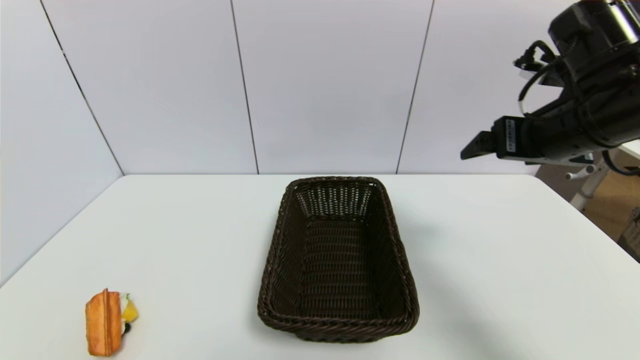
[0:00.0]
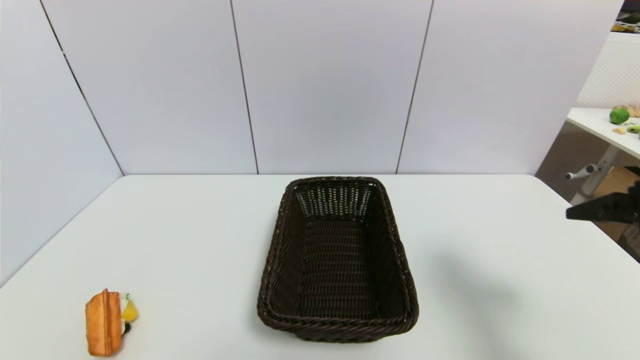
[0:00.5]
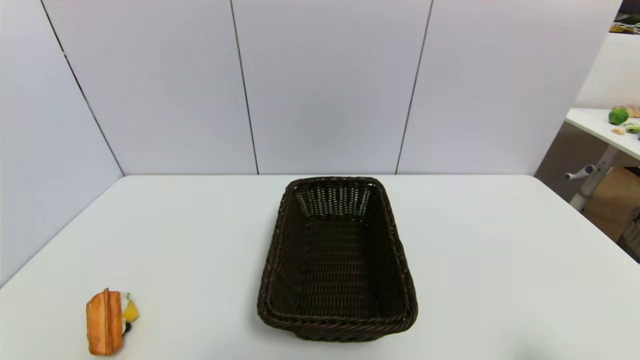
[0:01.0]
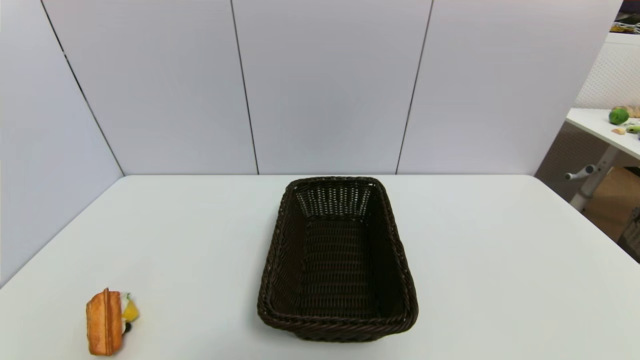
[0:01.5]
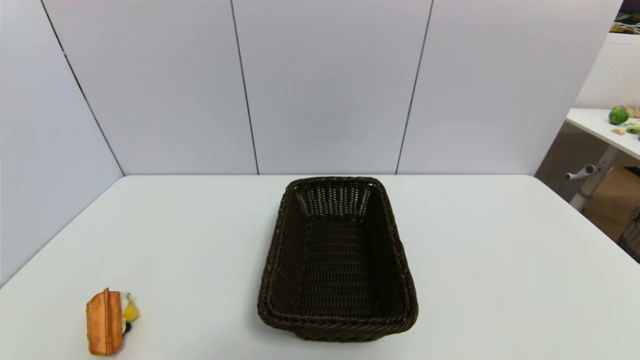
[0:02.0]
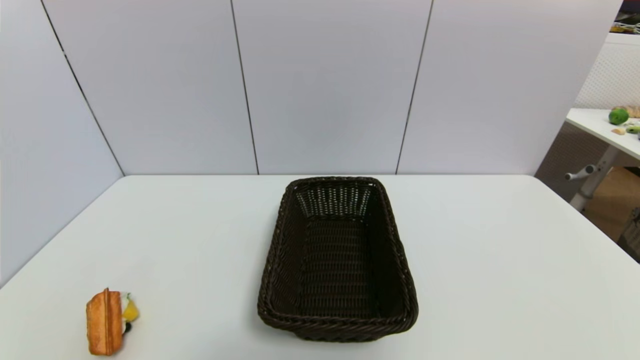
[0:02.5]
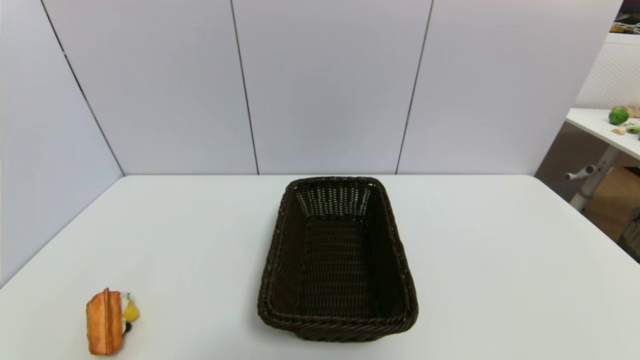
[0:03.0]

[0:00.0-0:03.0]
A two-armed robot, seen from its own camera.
0:00.0 to 0:01.5: The right gripper goes about 35 cm backward and downward.

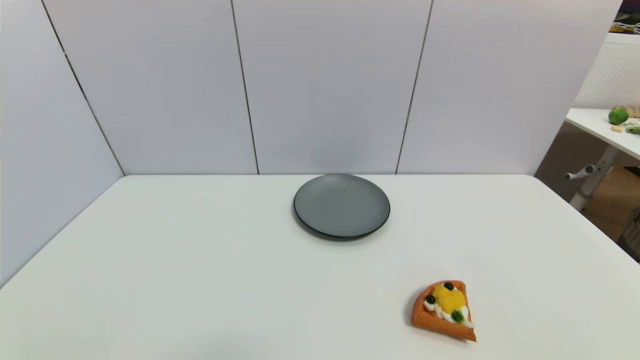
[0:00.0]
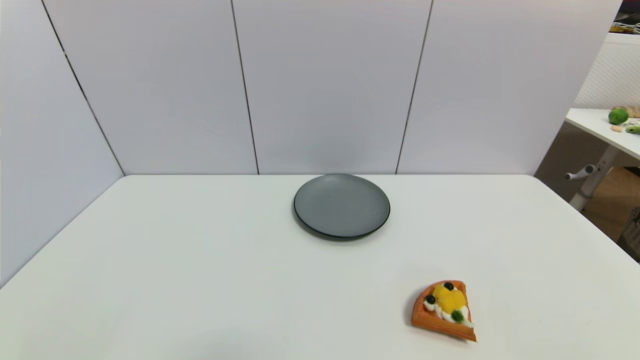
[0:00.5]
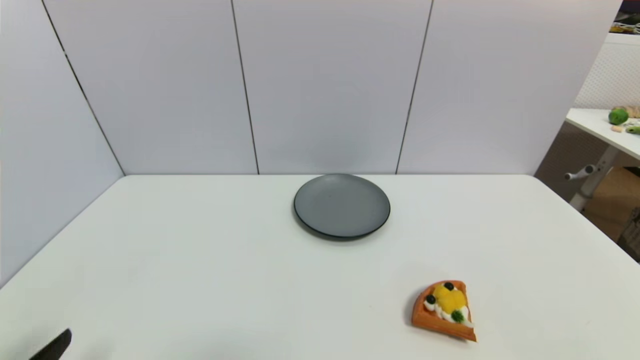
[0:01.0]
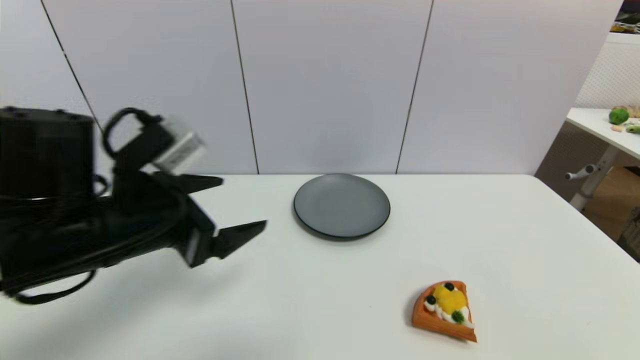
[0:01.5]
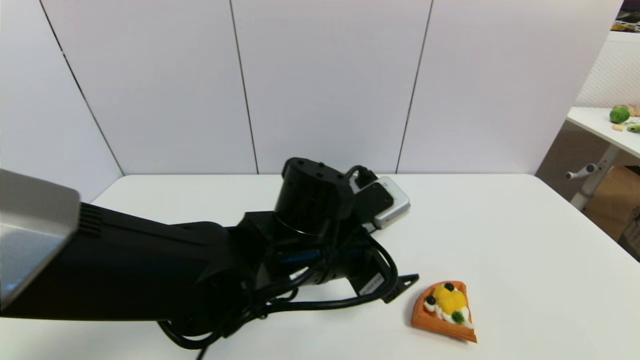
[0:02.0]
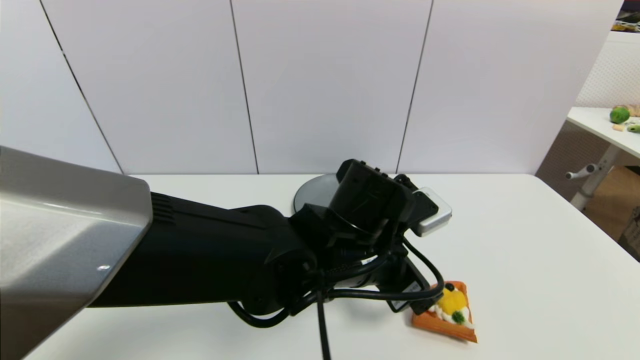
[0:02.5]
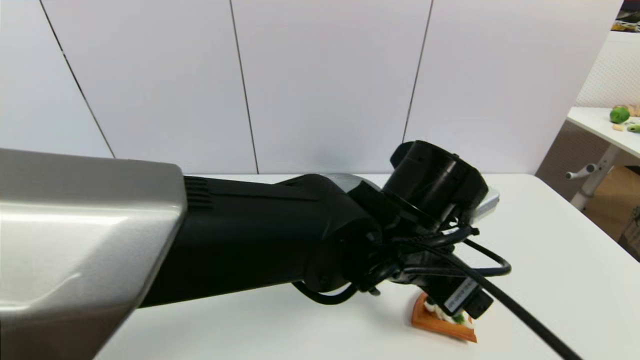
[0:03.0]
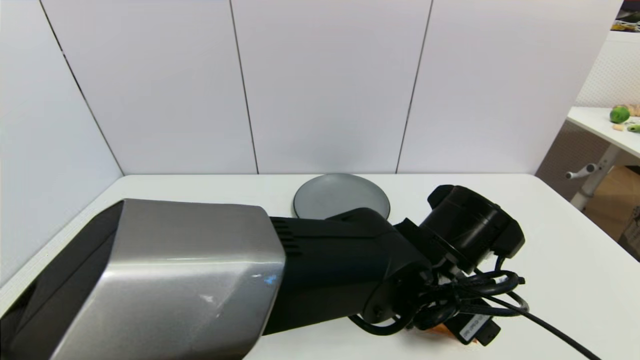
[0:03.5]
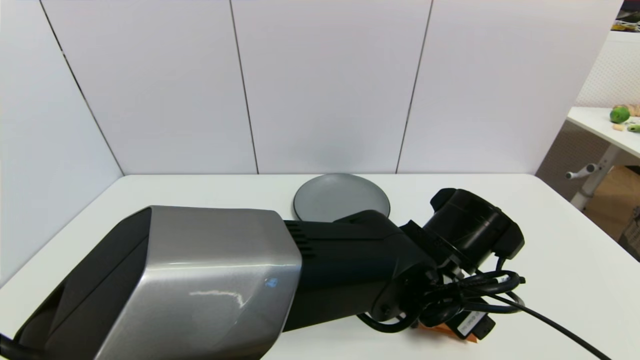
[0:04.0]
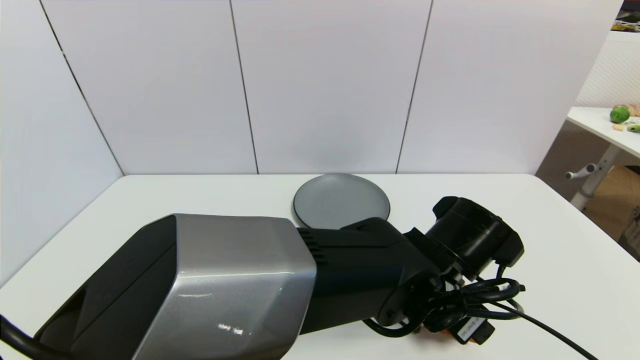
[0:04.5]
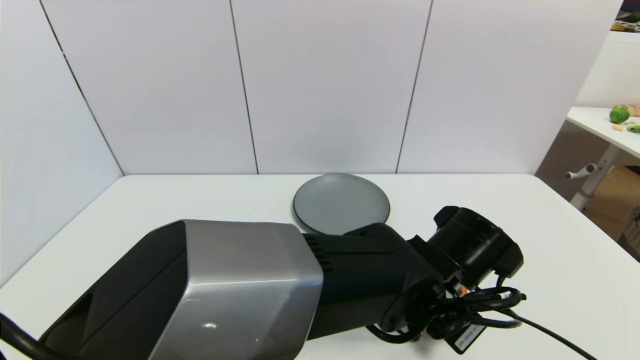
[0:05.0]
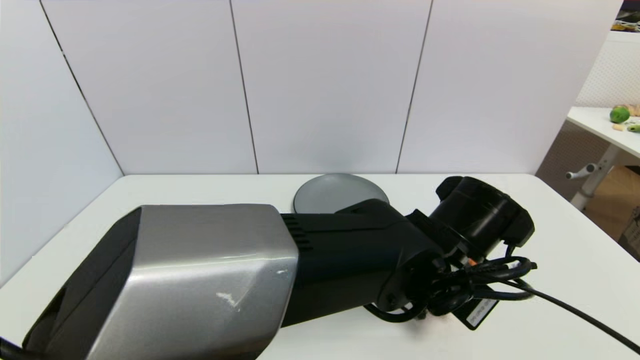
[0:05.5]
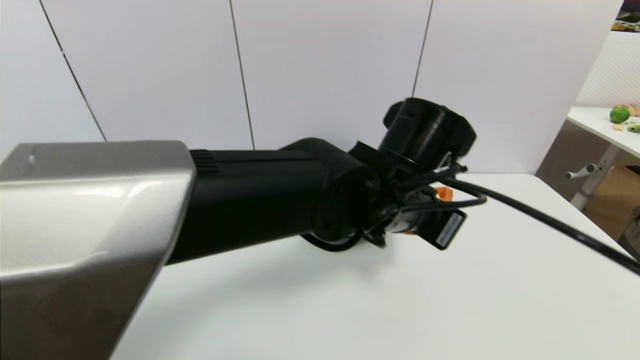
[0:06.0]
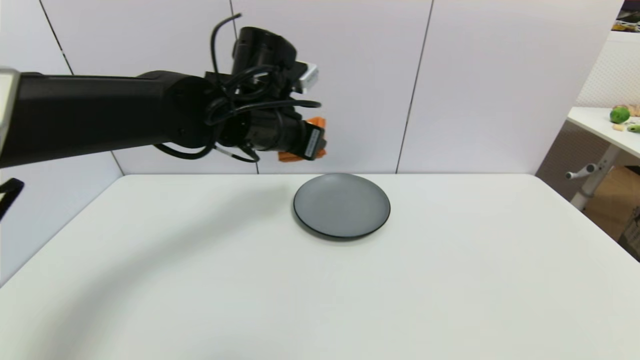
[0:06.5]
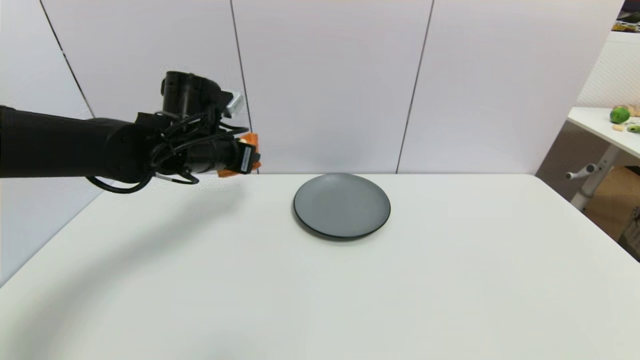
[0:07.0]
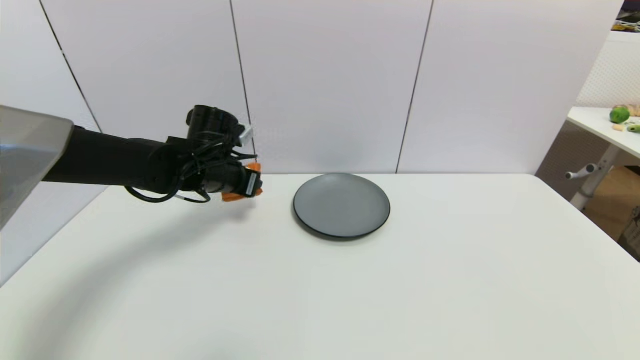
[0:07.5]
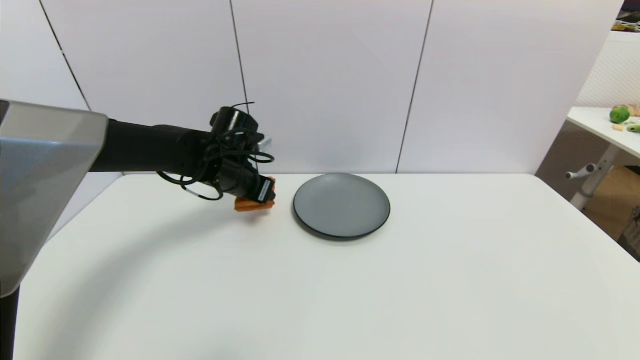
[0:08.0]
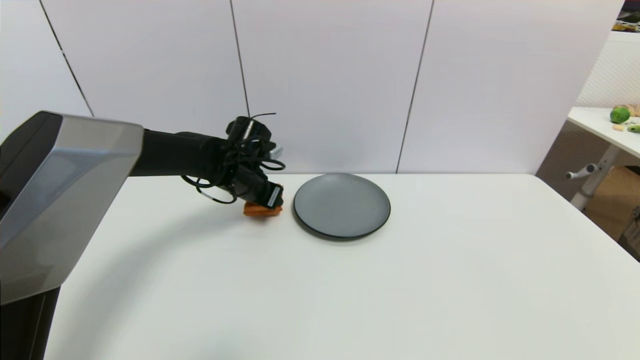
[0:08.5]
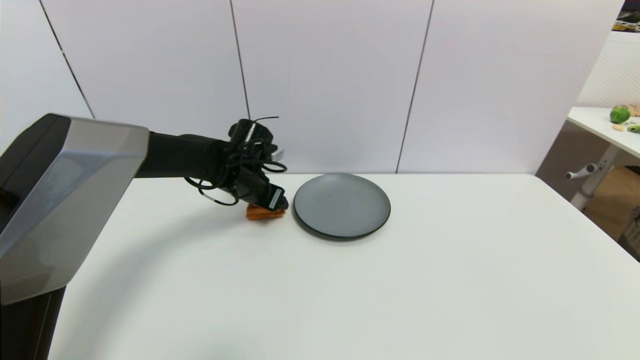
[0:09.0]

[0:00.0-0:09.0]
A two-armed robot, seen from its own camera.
Step, 0:01.0 to 0:05.0: Grasp the pizza with left gripper.
0:00.0 to 0:02.0: The left gripper is displaced to the right and forward by roughly 40 cm.
0:02.0 to 0:04.5: The left gripper goes roughly 15 cm to the right.
0:04.5 to 0:07.0: The left gripper goes approximately 30 cm to the left and forward, and closes.
0:07.0 to 0:09.0: The left gripper goes about 10 cm downward and forward, and opens.

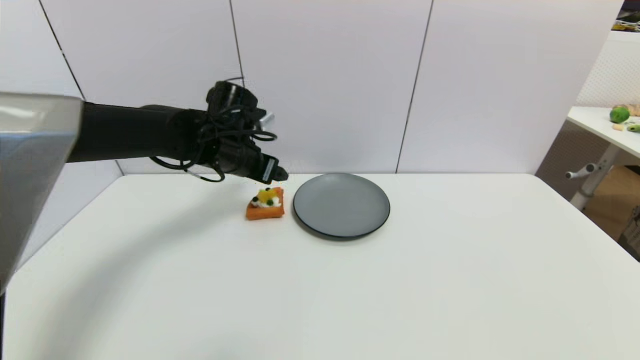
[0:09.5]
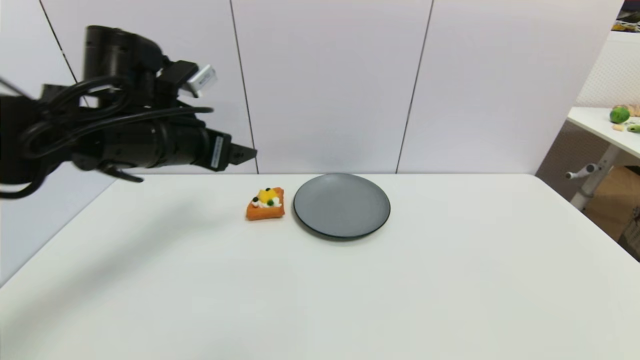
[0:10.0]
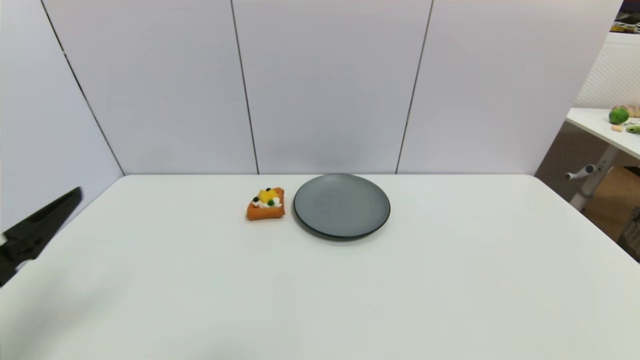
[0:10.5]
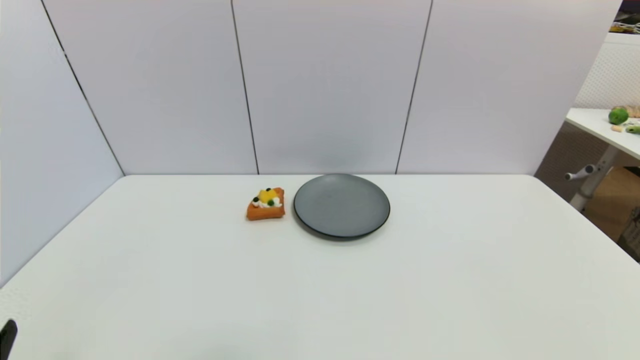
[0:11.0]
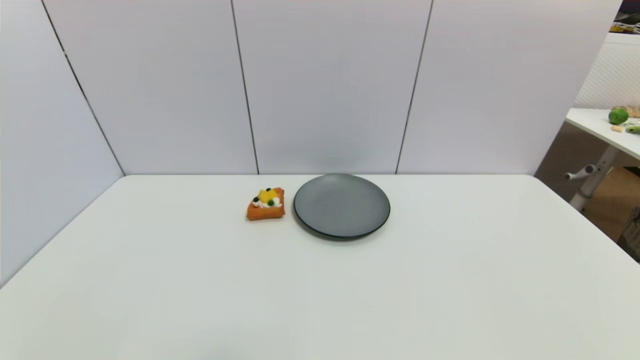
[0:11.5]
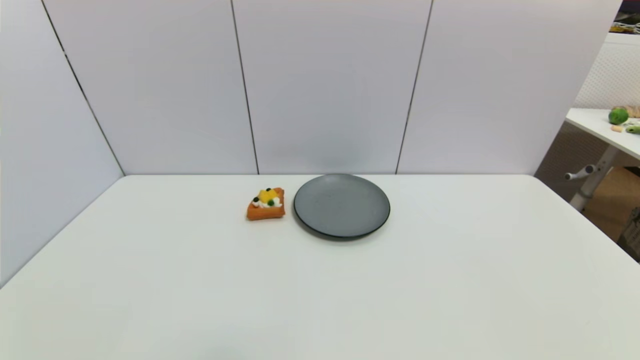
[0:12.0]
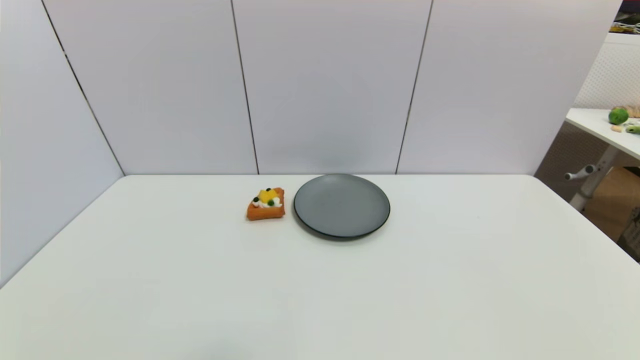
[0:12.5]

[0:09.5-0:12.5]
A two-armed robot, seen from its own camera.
0:09.5 to 0:11.0: The left gripper shifts some 40 cm backward and to the left.
